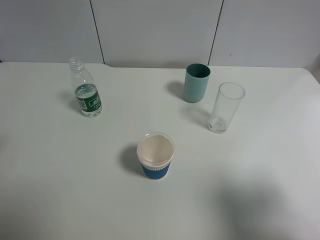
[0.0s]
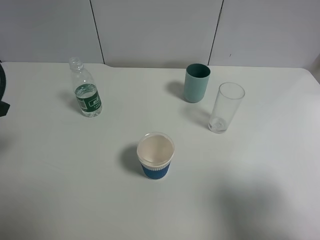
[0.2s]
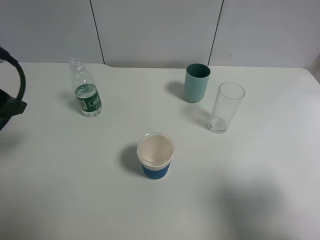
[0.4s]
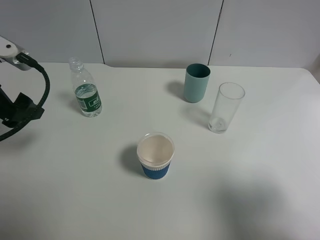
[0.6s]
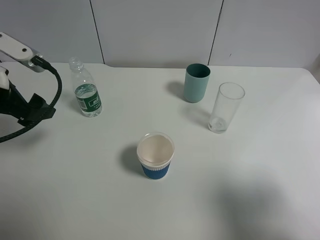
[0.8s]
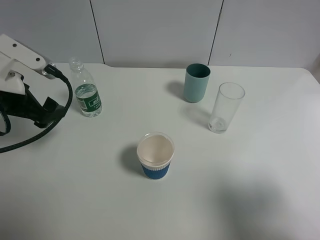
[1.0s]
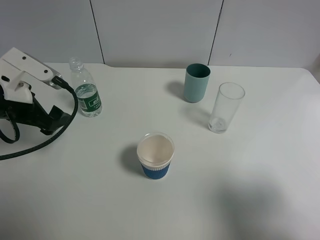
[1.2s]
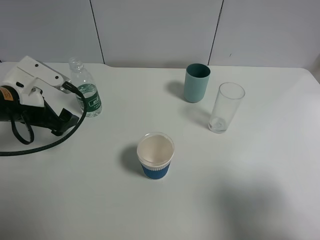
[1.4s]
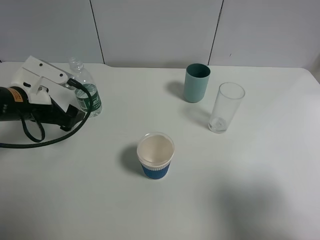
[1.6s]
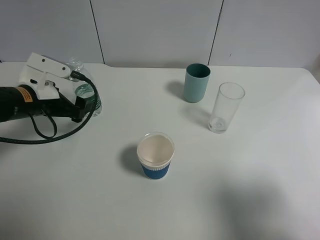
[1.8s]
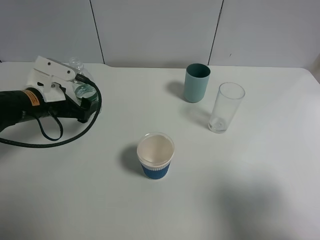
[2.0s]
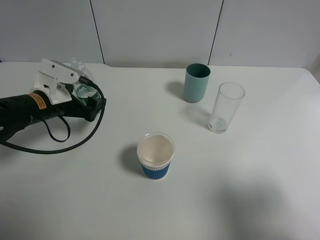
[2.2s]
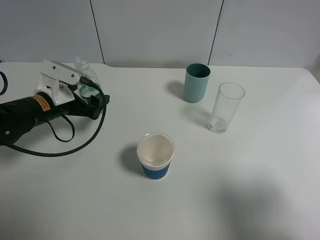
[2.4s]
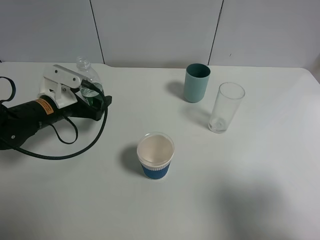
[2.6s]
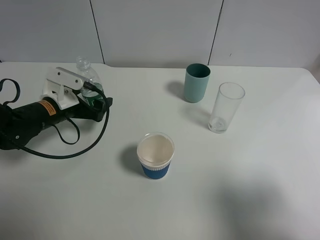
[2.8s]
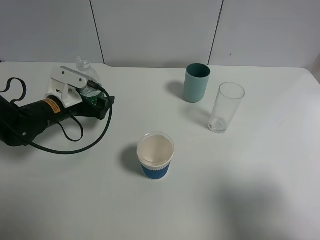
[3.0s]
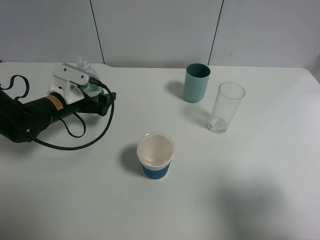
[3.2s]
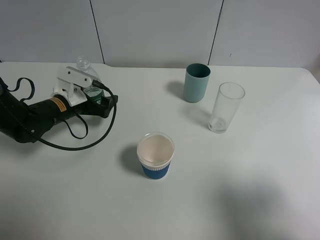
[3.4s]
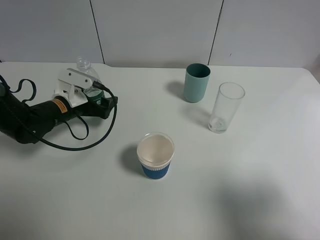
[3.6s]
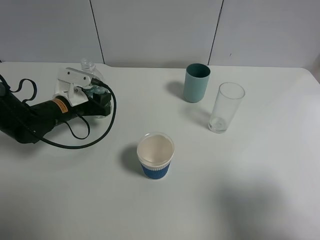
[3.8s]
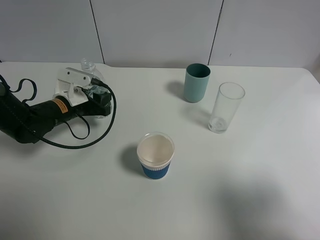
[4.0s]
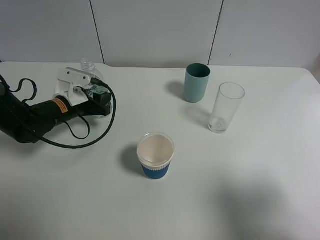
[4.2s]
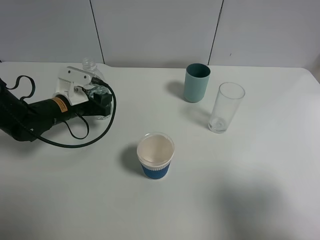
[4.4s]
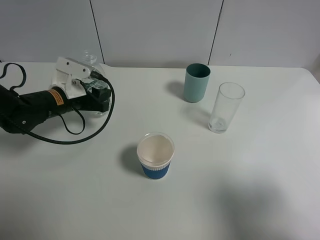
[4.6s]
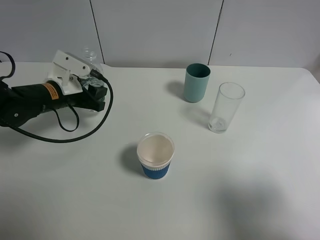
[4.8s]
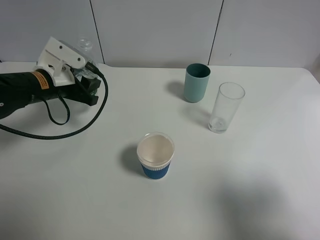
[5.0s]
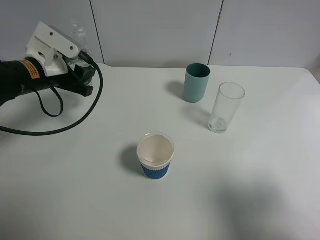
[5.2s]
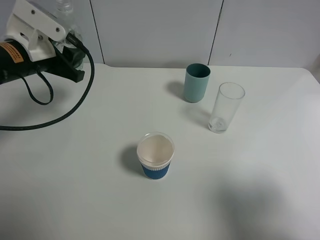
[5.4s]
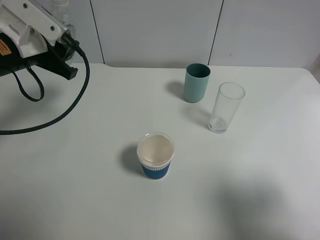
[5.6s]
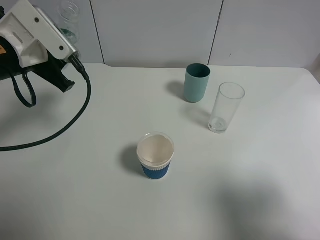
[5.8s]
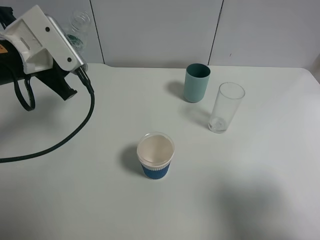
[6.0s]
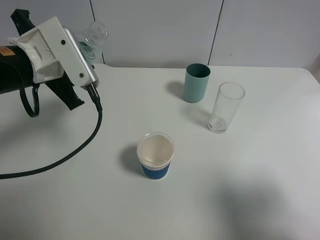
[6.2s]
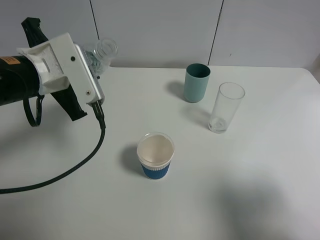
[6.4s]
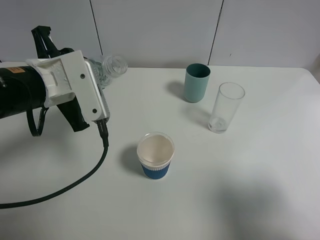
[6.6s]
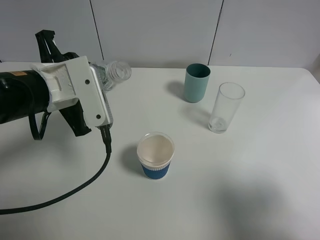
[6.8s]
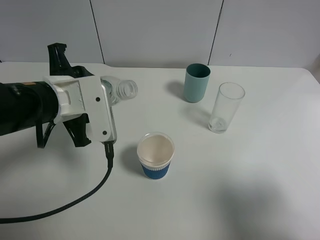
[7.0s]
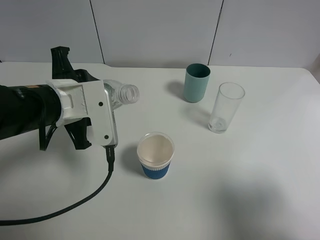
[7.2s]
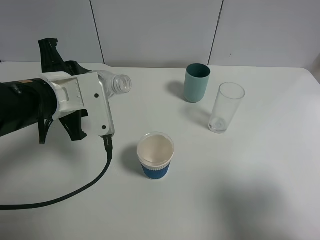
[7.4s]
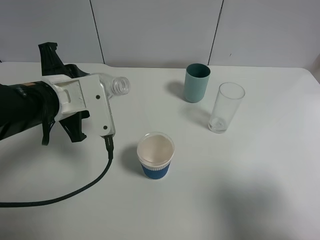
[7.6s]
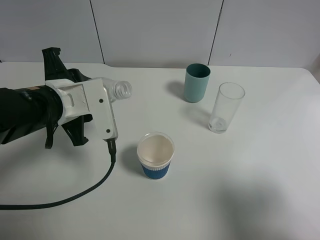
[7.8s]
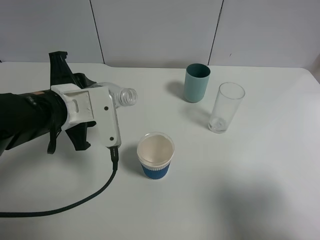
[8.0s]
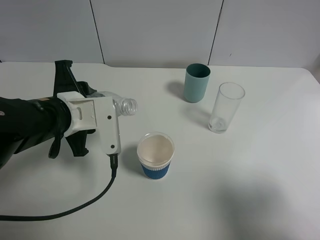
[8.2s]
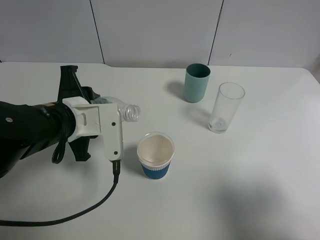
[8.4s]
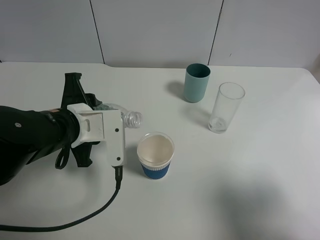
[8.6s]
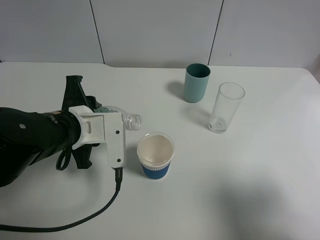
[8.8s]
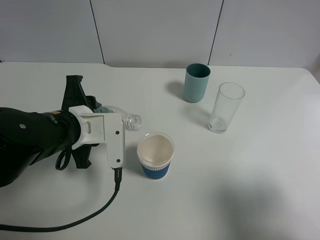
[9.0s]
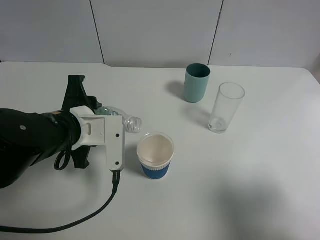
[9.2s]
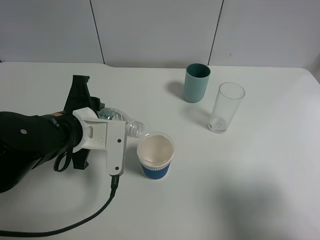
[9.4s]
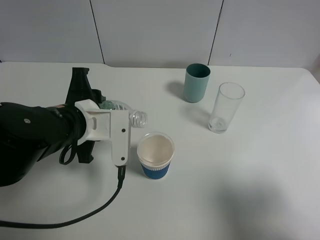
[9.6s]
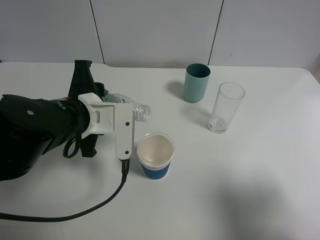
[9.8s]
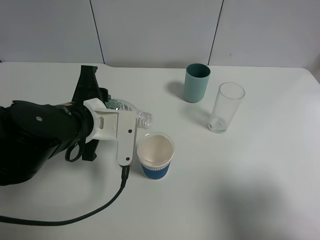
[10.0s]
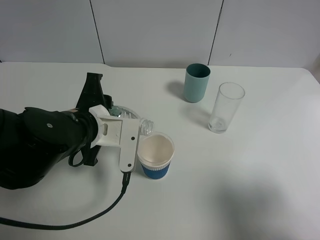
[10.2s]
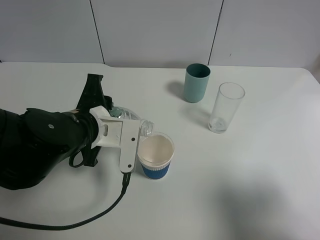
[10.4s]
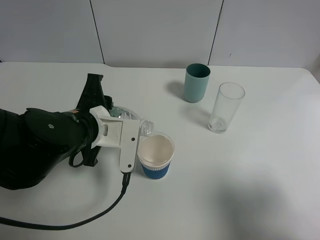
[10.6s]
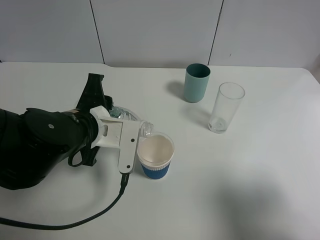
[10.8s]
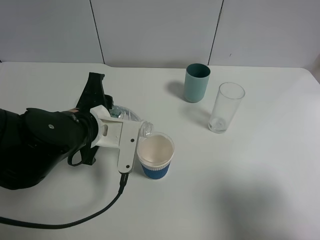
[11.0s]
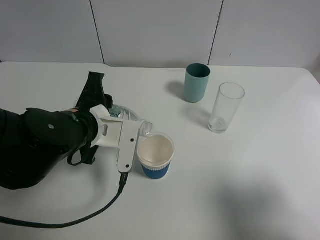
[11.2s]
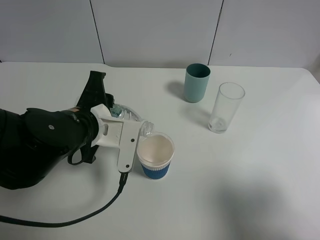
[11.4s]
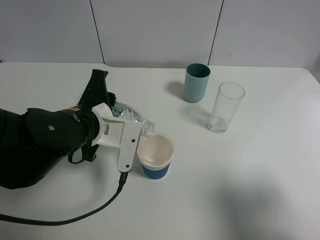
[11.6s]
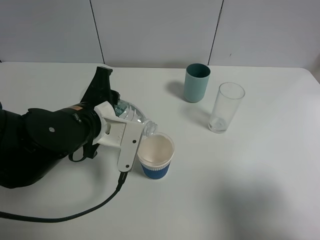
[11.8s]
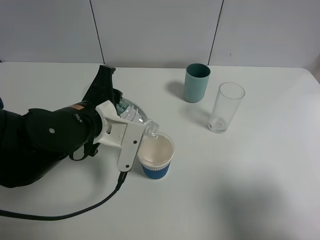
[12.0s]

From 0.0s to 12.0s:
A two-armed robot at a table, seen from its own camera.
Task of the whole recording: use a gripper to hold the bottle of the drink and pour it into a random cup.
Step, from 0.0s to 4.4s: Grasp the mineral water bottle with the left gripper.
From 0.0s to 1.6s: The left gripper moves downward, forward and to the right, some 20 cm.
From 1.6s to 3.0s: The left gripper is displaced downward by roughly 5 cm.
From 3.0s to 4.4s: The left gripper closes up.
From 4.4s to 6.0s: The left gripper travels upward and backward by approximately 15 cm.
From 6.0s to 7.6s: The left gripper moves roughly 5 cm.
From 7.6s to 9.0s: The grippers make only small movements.
From 9.0s to 10.4s: There are only small adjustments of the grippers.
From 10.4s to 12.0s: The grippers make only small movements.

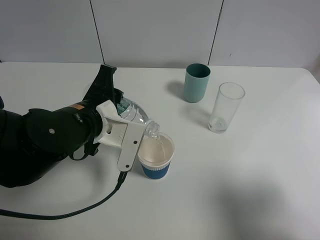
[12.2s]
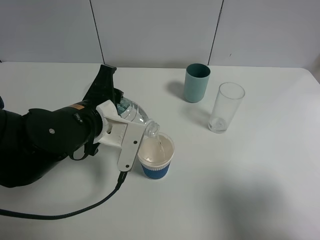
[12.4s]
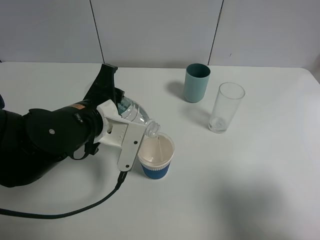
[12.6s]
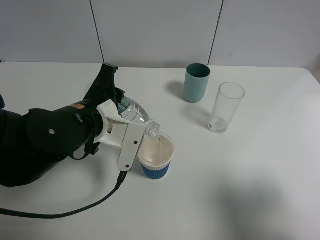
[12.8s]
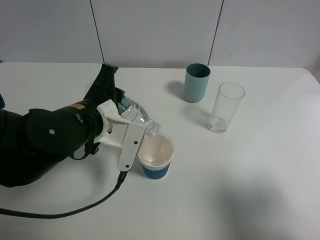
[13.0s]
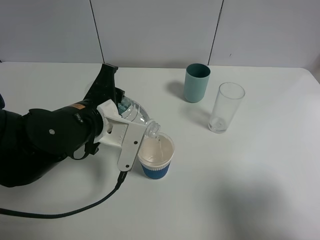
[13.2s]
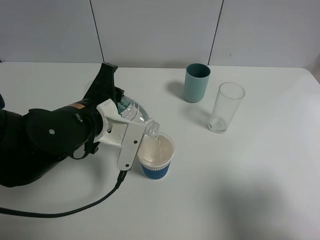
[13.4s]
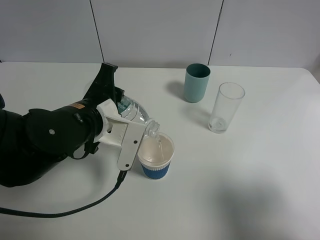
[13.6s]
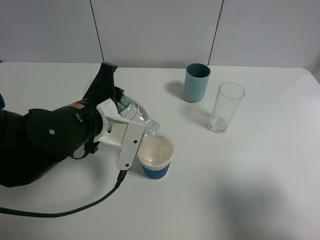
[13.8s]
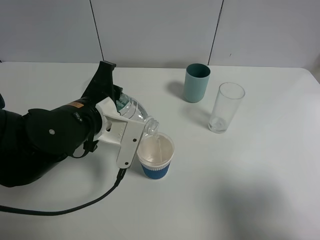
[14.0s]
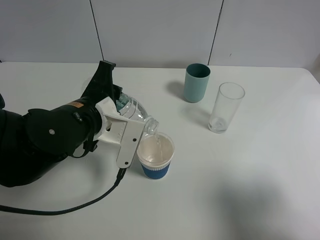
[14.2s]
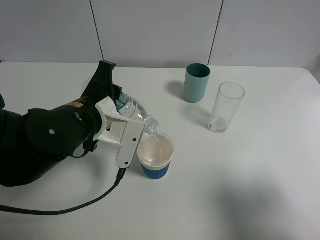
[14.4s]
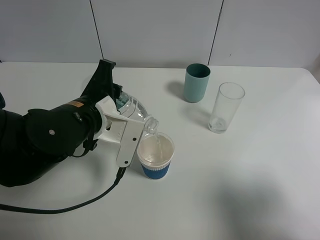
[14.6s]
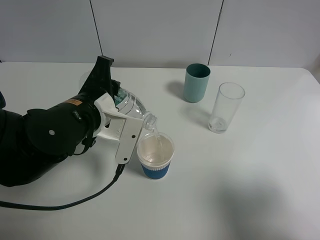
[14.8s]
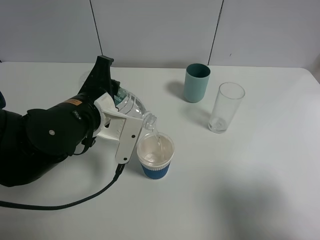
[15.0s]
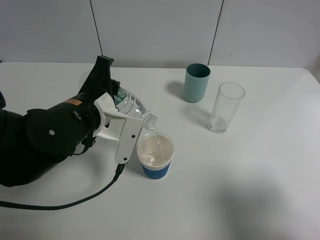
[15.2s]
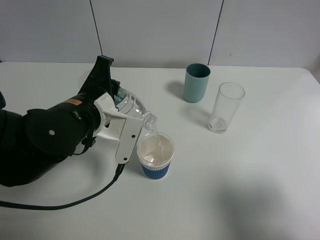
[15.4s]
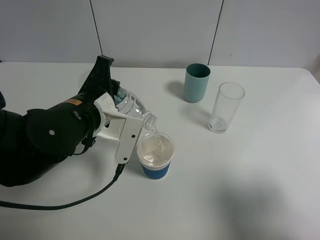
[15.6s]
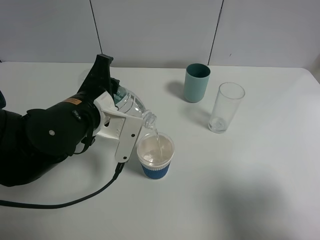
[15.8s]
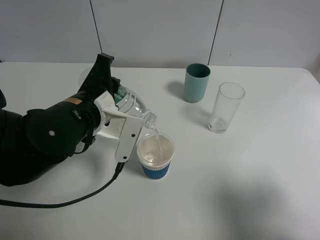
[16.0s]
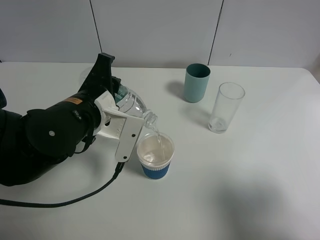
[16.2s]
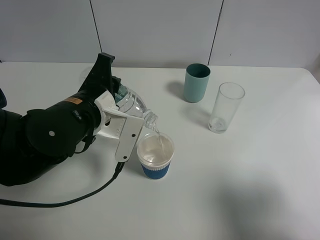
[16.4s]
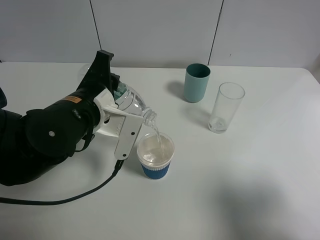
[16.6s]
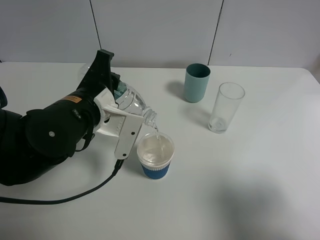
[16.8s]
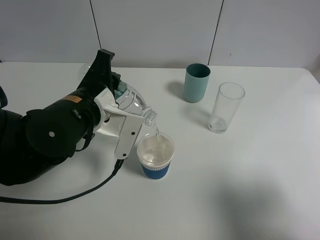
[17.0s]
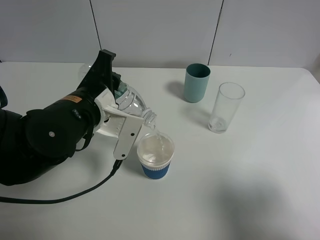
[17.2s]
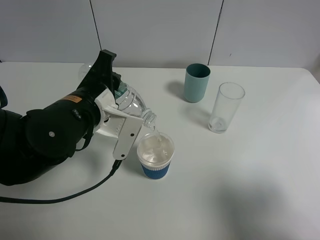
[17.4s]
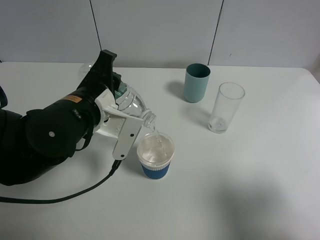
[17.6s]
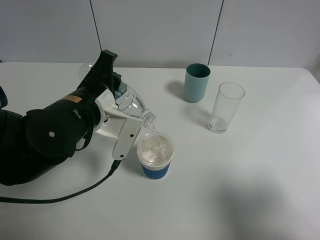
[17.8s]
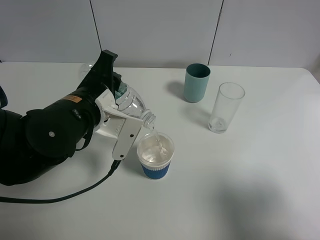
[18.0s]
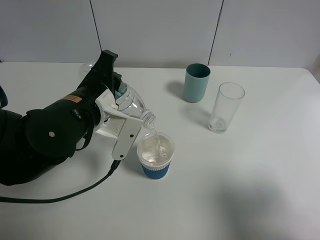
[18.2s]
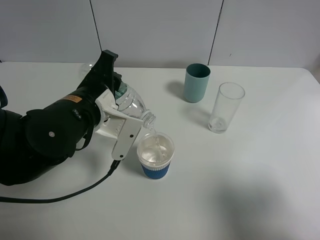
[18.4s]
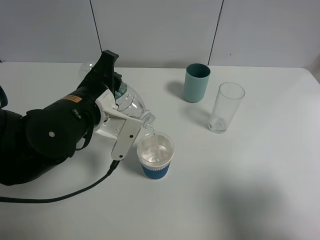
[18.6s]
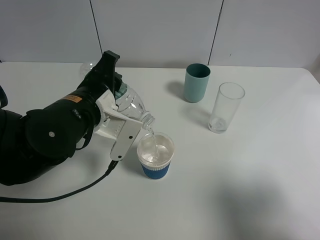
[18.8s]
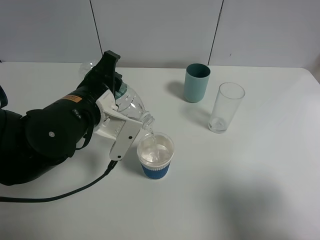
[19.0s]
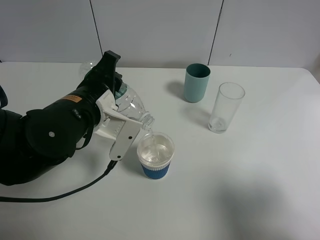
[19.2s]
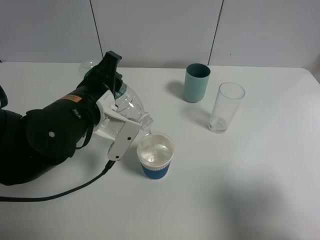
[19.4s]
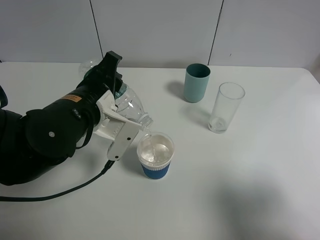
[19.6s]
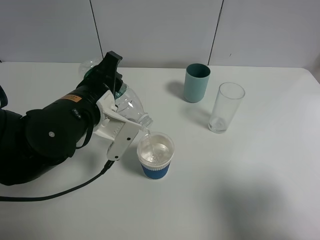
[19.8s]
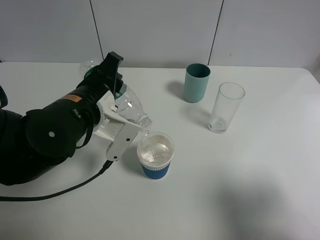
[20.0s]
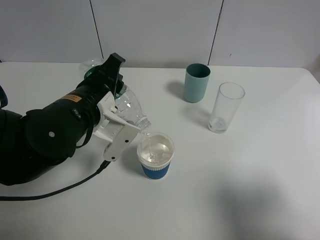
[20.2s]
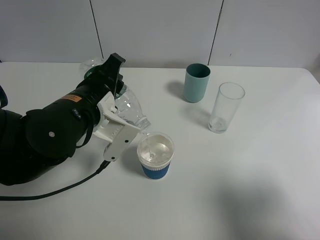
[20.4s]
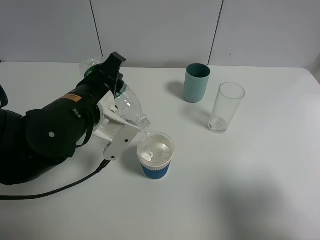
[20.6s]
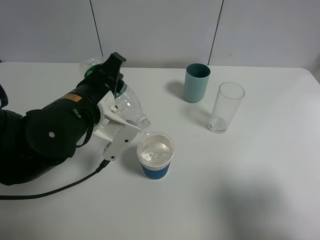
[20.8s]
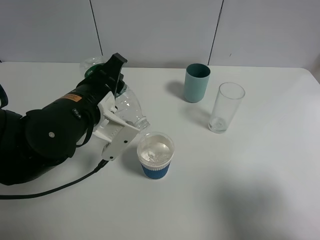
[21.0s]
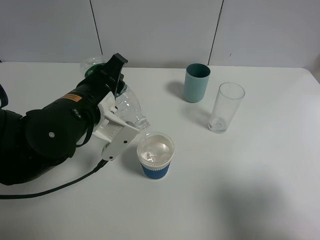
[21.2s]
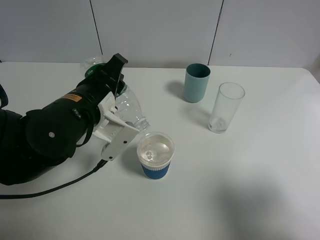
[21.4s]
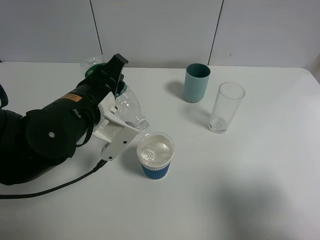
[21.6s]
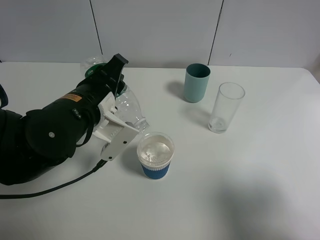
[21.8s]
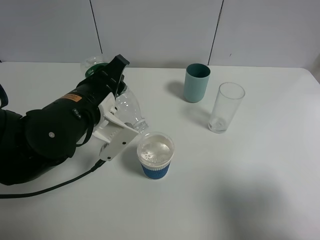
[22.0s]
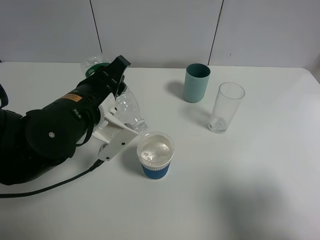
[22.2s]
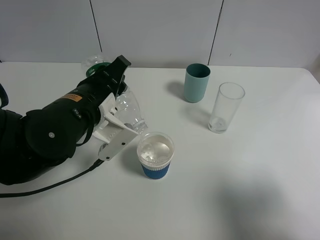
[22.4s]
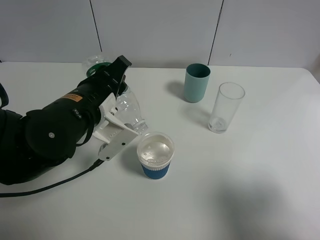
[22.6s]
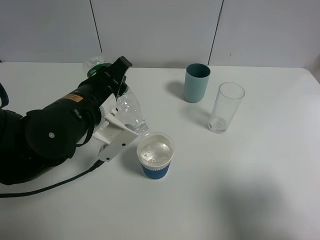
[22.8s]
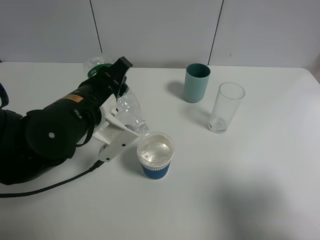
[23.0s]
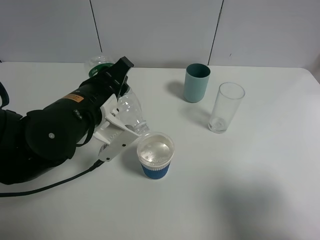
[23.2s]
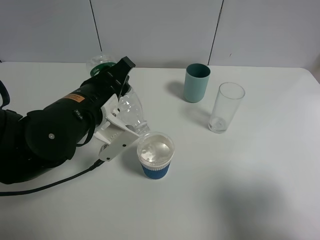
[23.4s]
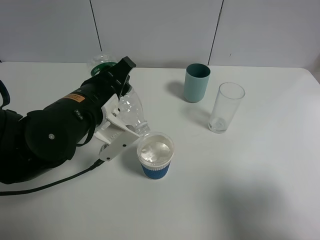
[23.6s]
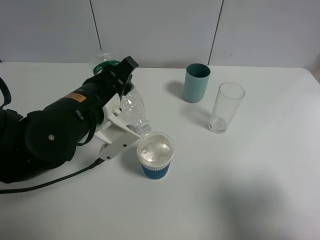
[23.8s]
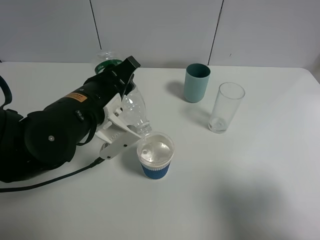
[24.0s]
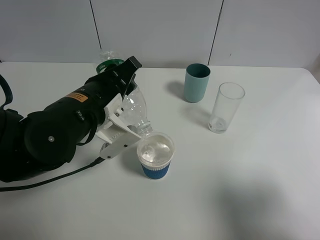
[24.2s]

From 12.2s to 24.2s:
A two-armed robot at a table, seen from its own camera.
Task of the whole recording: use a gripper to hold the bottle of the drink and pour it into a random cup.
From 12.2s to 13.8s: Neither gripper changes place.
From 13.8s to 15.2s: Both grippers stay about where they are.
From 15.2s to 16.6s: Both grippers stay about where they are.
From 16.6s to 18.2s: Both grippers stay about where they are.
From 18.2s to 21.2s: The grippers stay close to where they were, moving slightly.
From 21.2s to 22.6s: Both grippers stay put.
From 22.6s to 24.2s: The grippers move only a little.
